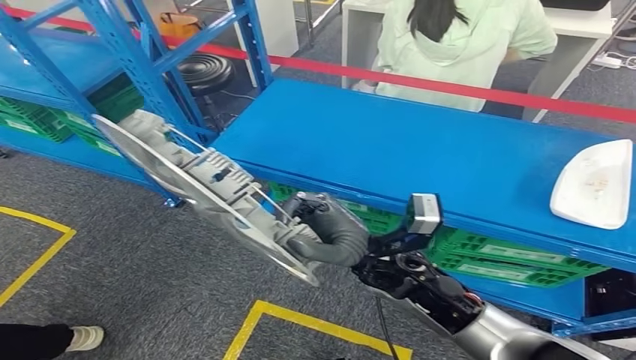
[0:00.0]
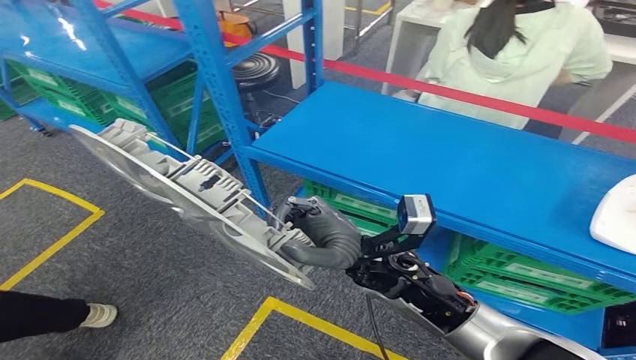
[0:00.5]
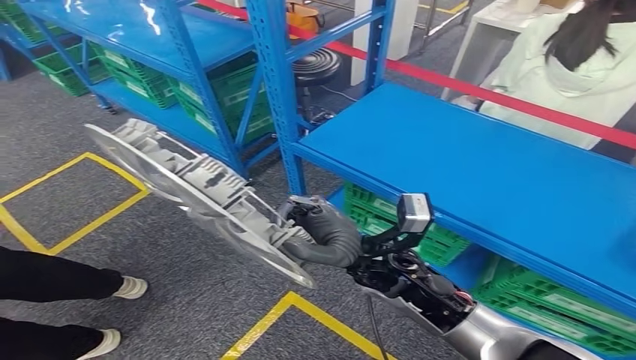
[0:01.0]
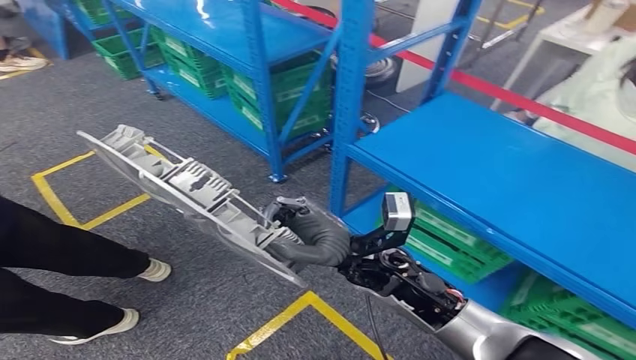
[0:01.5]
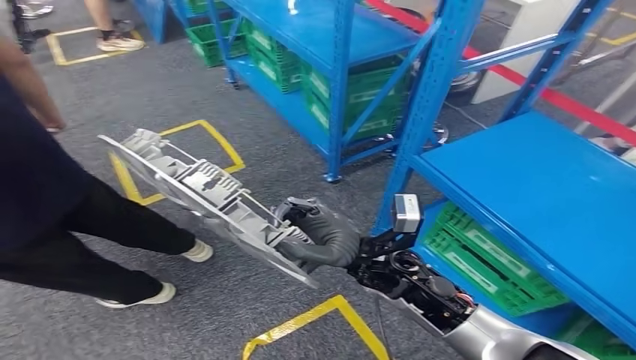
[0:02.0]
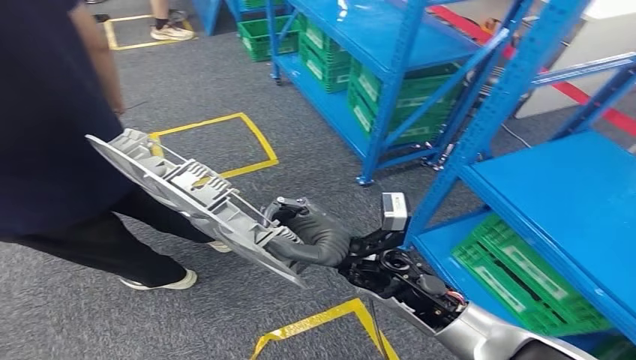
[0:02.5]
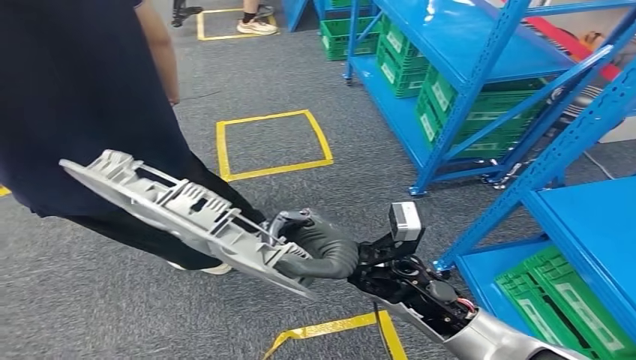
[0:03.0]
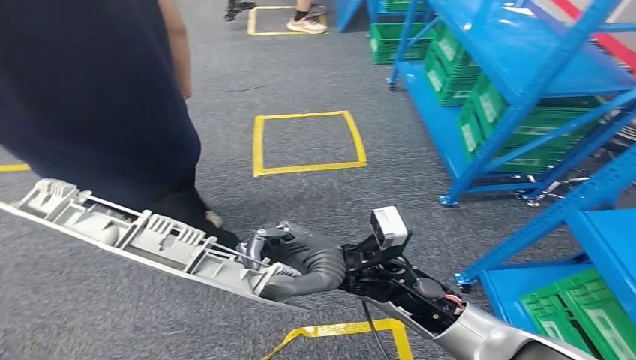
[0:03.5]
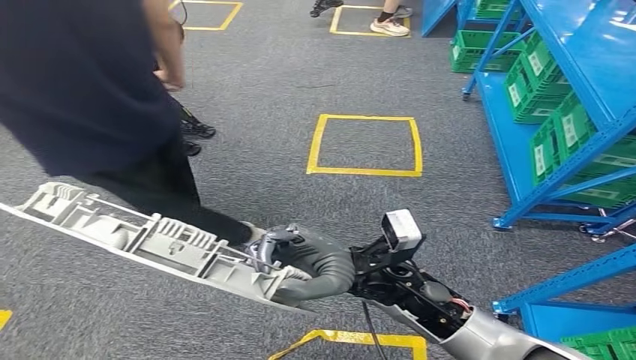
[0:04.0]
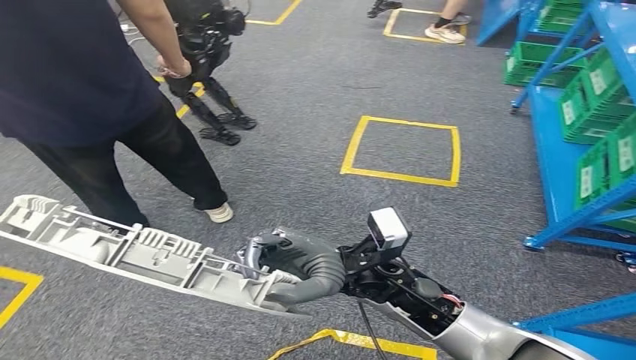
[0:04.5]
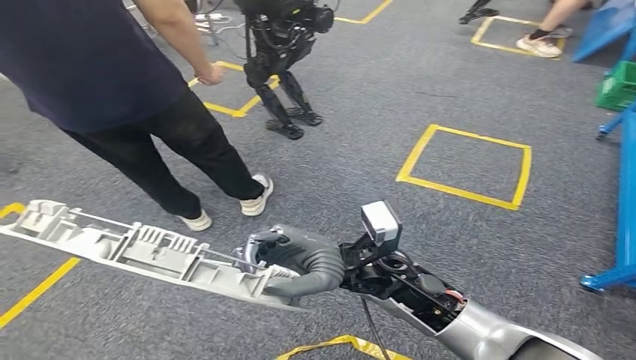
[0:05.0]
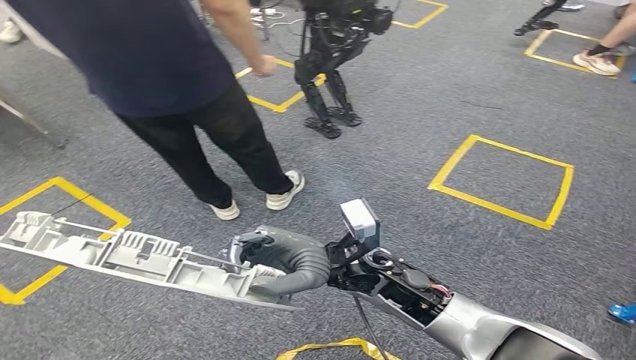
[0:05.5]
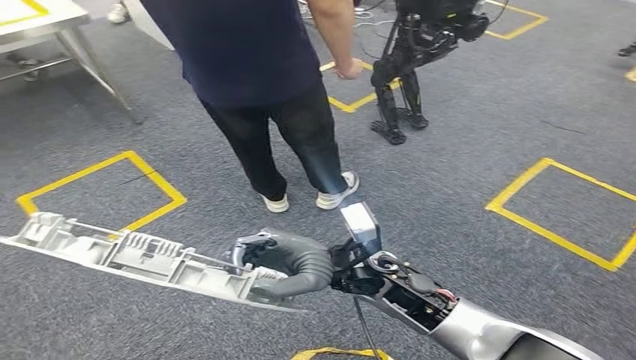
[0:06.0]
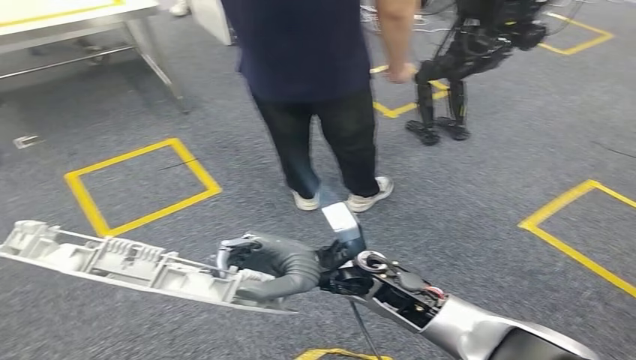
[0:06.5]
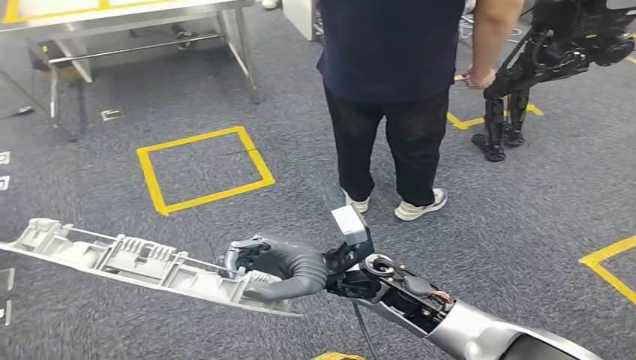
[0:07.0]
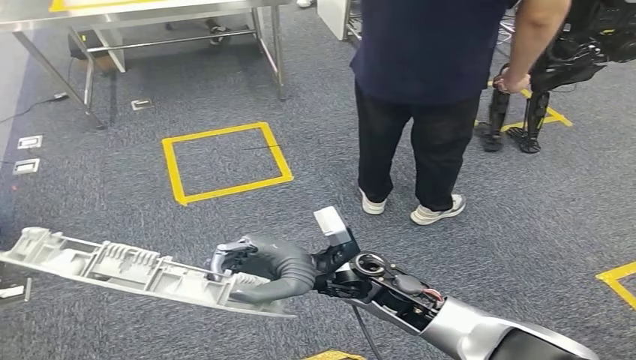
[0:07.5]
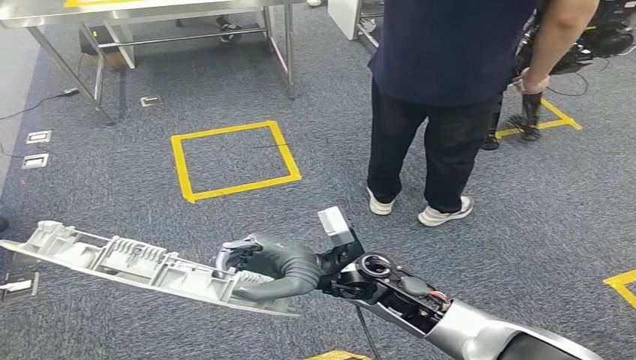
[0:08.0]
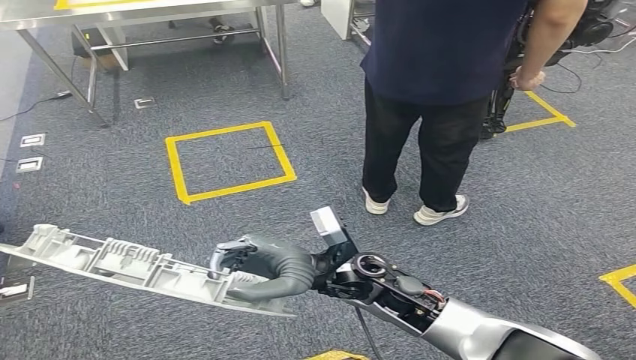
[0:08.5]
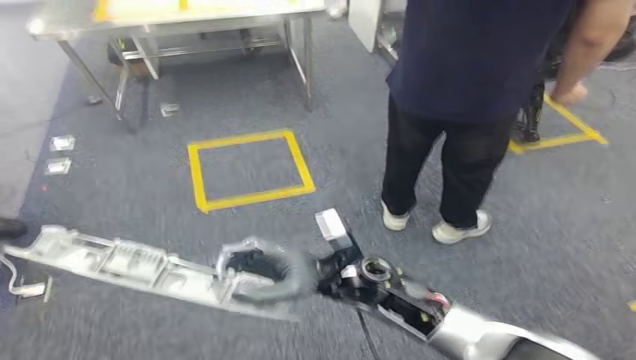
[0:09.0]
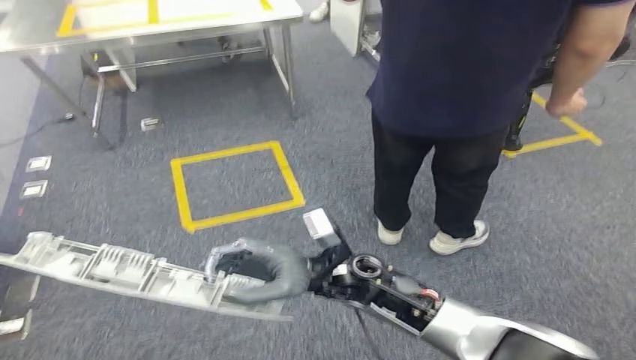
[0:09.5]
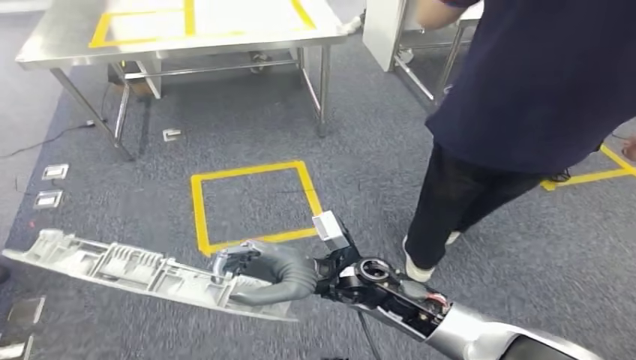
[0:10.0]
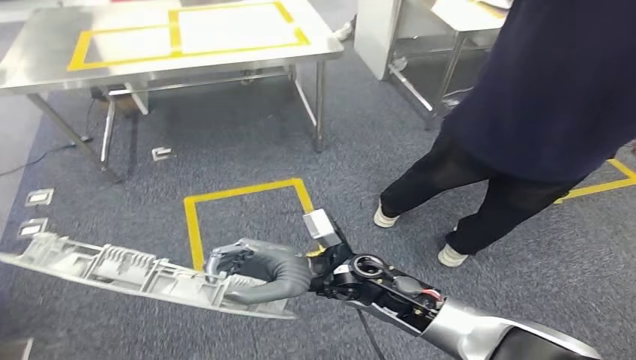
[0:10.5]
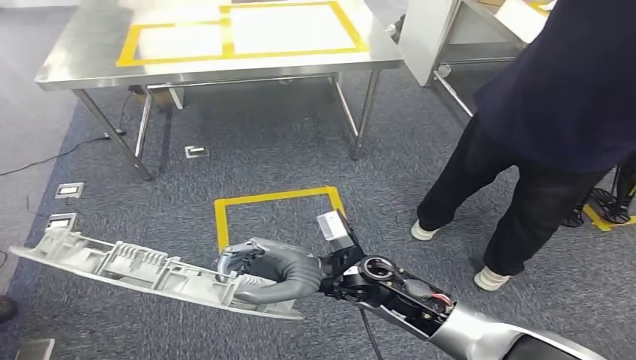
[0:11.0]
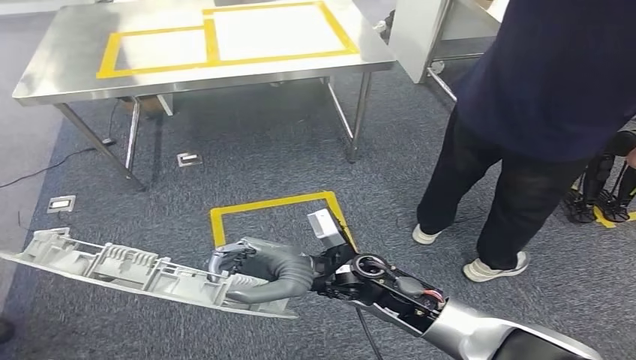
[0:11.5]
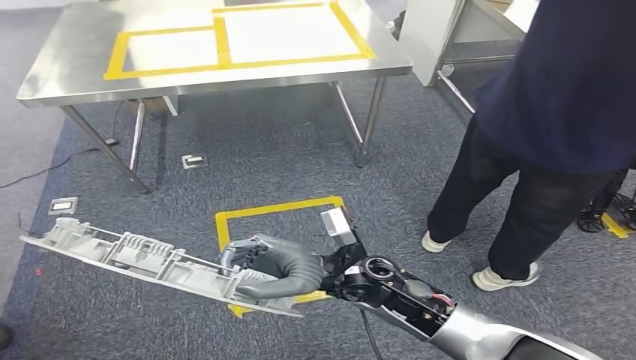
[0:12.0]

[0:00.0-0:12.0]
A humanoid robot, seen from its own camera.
Step, 0:00.0 to 0:11.5: Move the small component to the workbench.

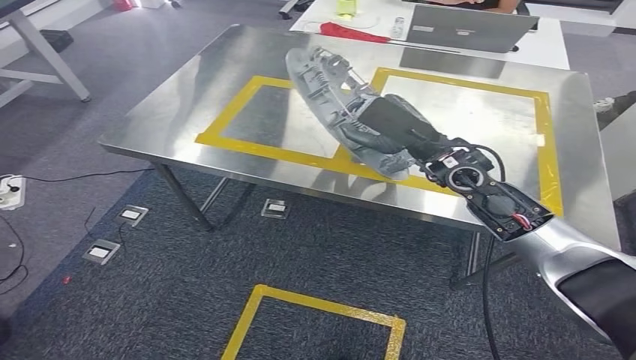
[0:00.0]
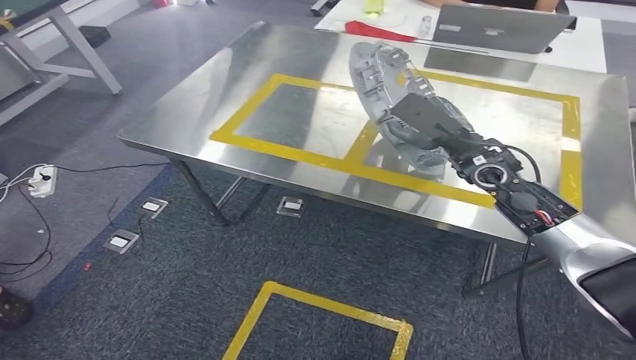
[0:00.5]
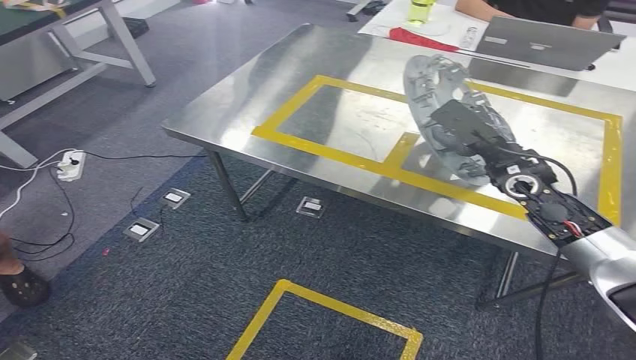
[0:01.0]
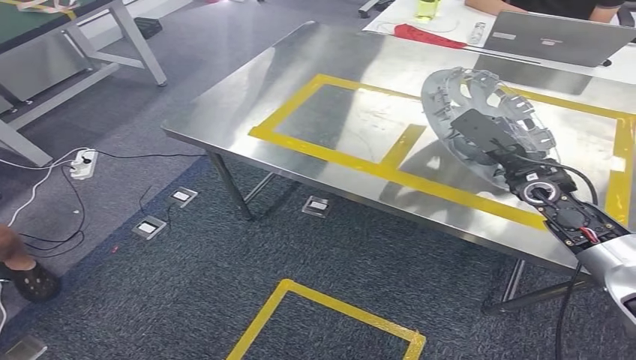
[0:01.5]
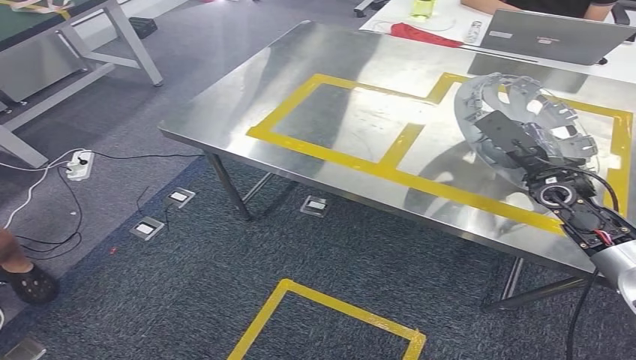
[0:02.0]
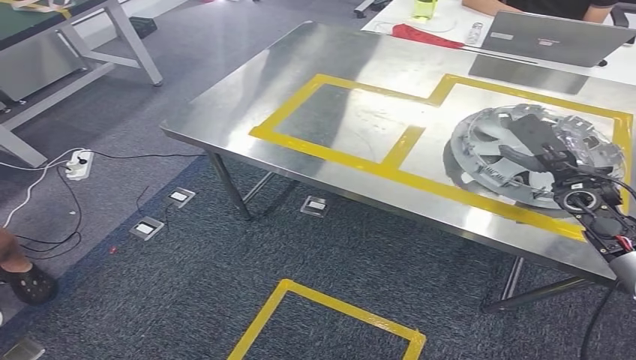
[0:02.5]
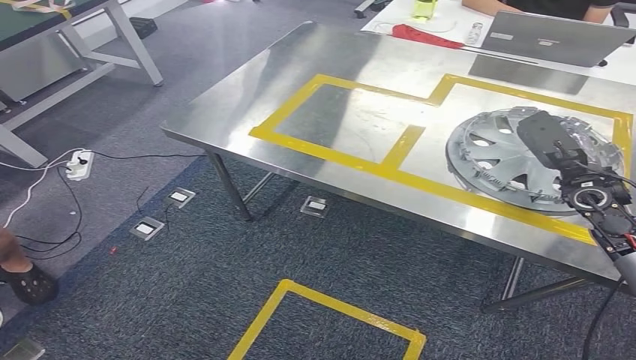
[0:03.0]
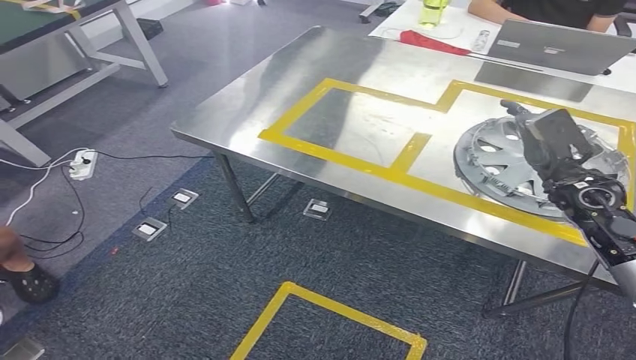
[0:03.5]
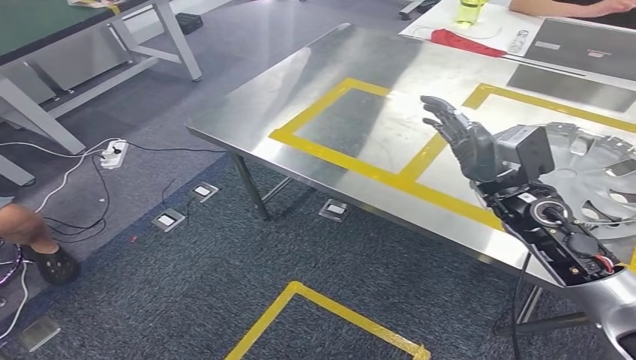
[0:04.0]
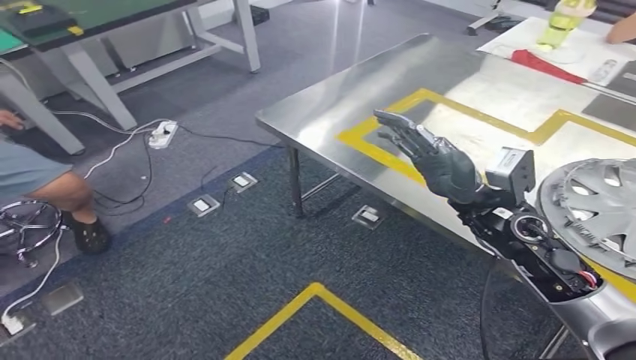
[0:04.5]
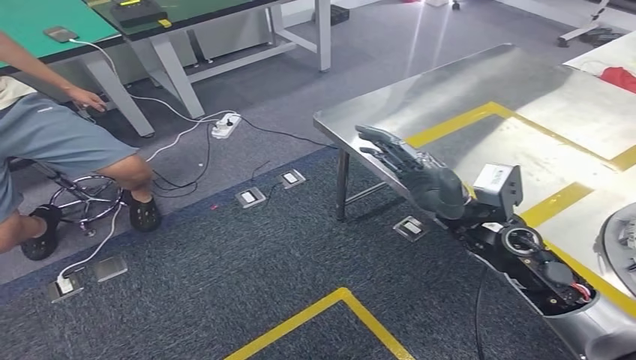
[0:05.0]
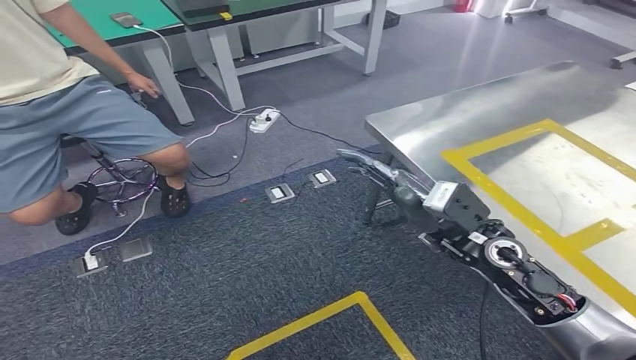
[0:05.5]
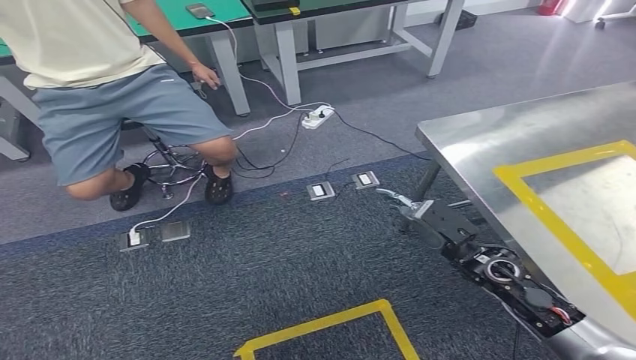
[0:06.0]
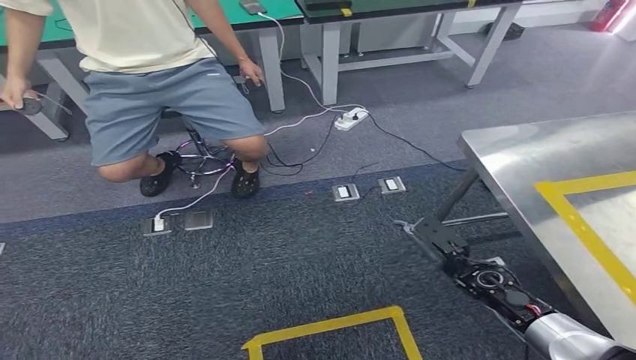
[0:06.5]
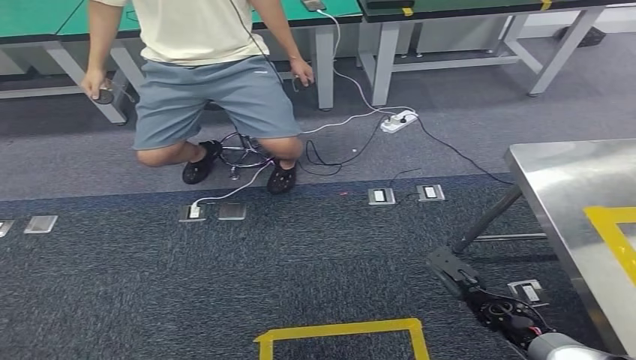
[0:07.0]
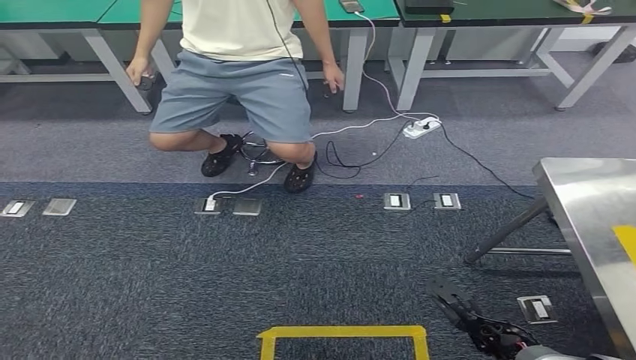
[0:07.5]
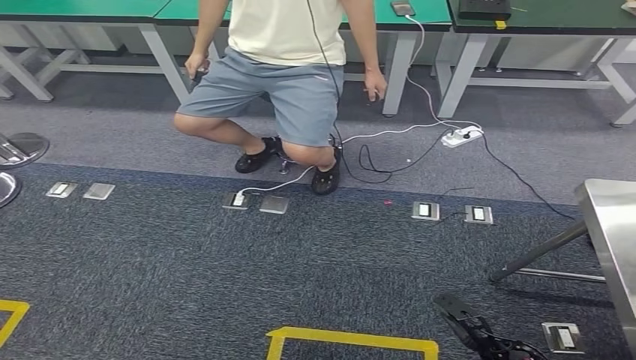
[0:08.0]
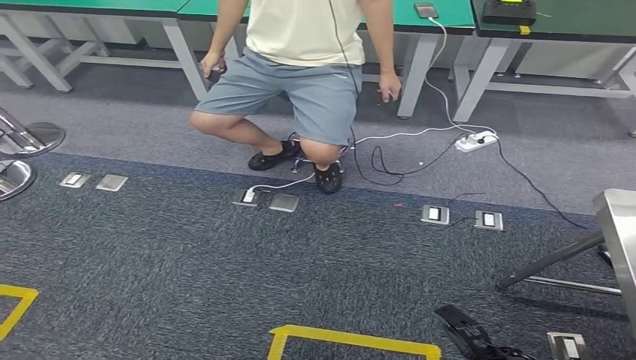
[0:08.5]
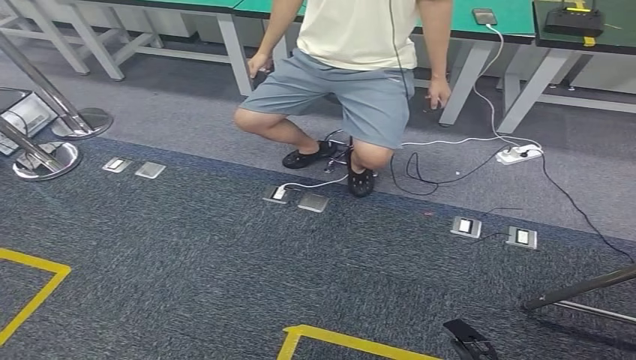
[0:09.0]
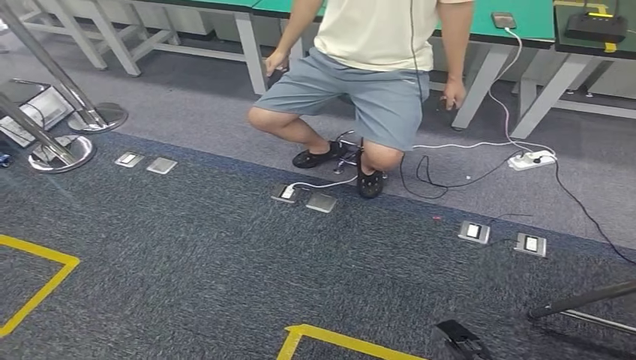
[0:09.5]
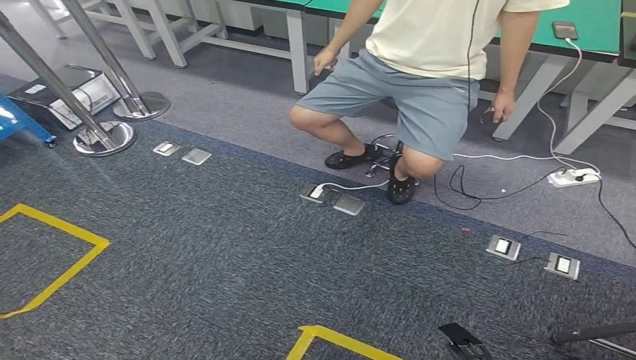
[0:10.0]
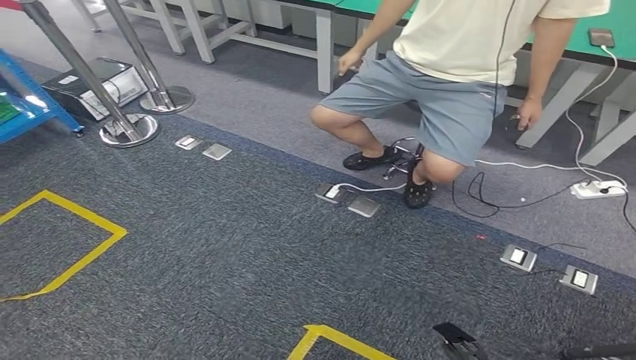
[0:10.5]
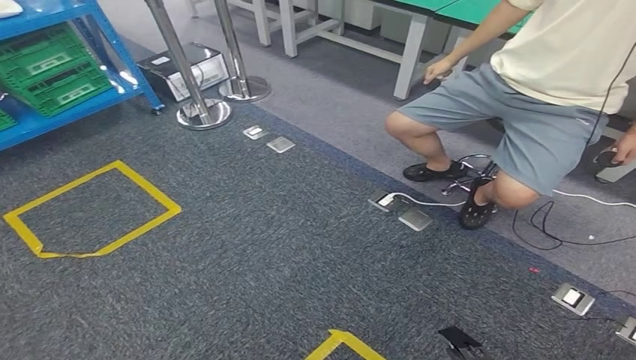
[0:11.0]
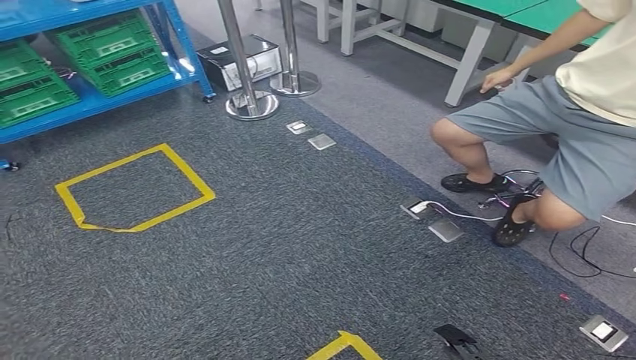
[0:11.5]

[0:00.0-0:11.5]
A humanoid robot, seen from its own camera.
Step, 0:00.0 to 0:03.0: Insert the small component into the corresponding slot on the workbench.
